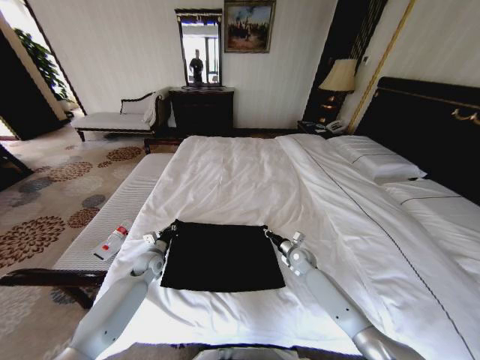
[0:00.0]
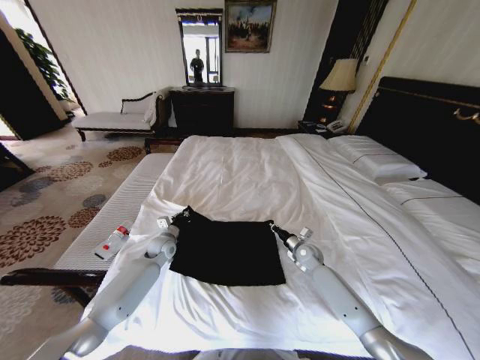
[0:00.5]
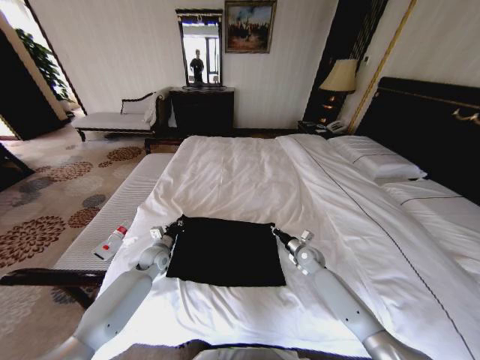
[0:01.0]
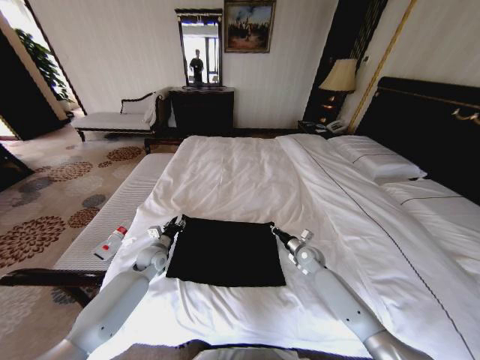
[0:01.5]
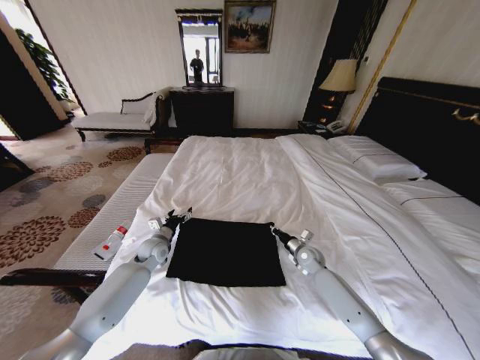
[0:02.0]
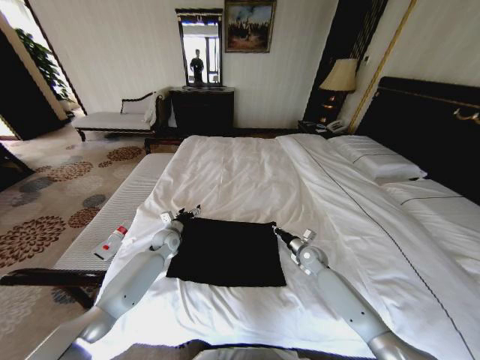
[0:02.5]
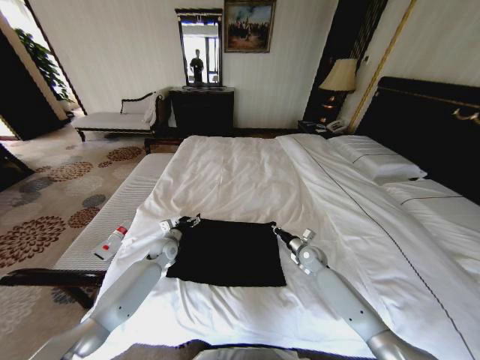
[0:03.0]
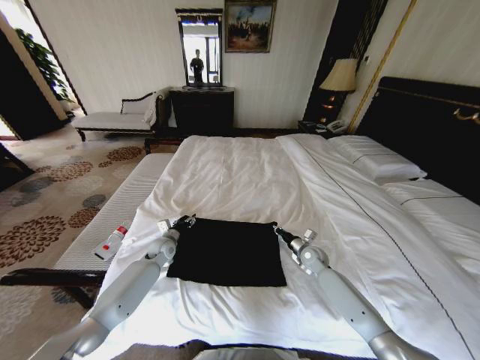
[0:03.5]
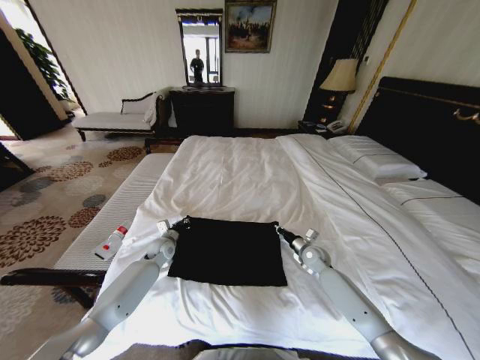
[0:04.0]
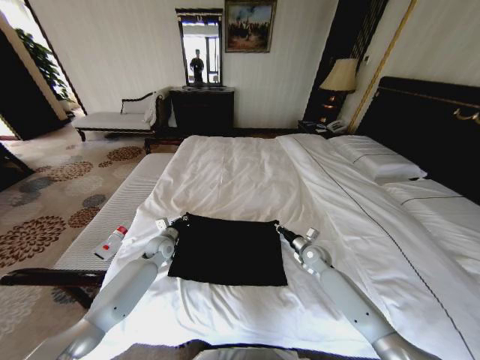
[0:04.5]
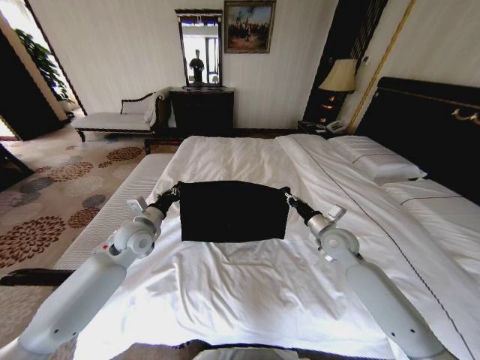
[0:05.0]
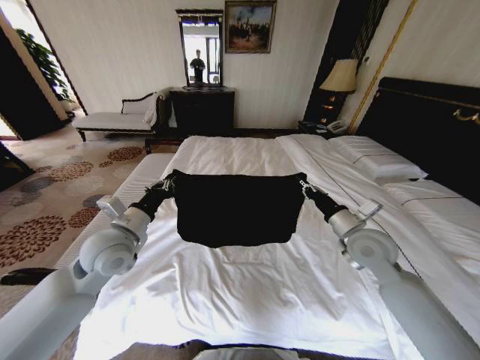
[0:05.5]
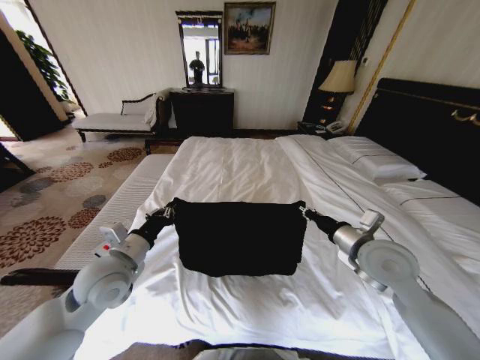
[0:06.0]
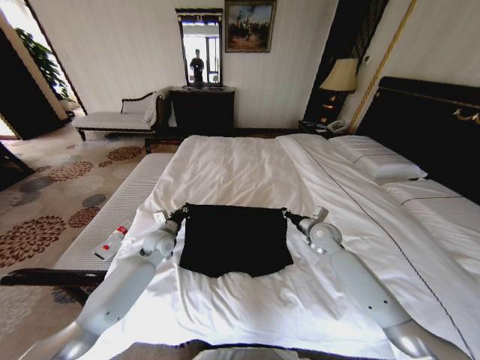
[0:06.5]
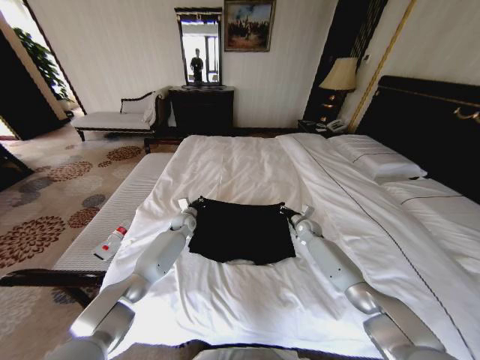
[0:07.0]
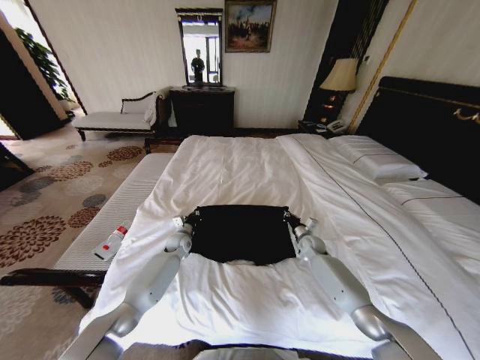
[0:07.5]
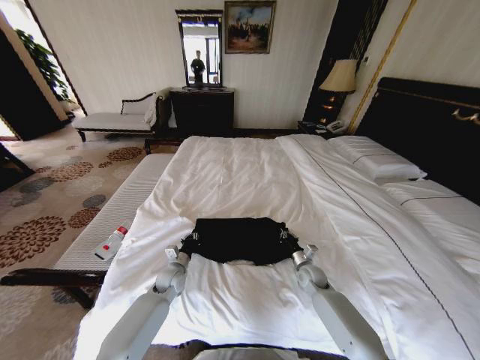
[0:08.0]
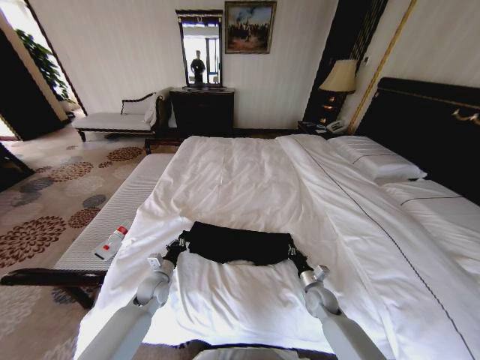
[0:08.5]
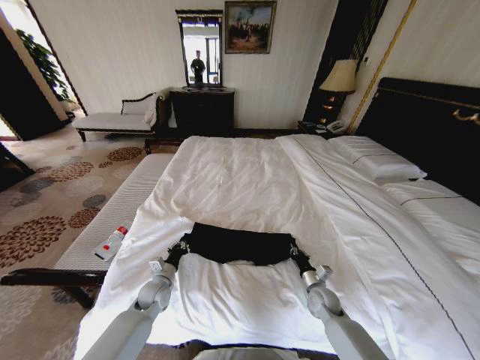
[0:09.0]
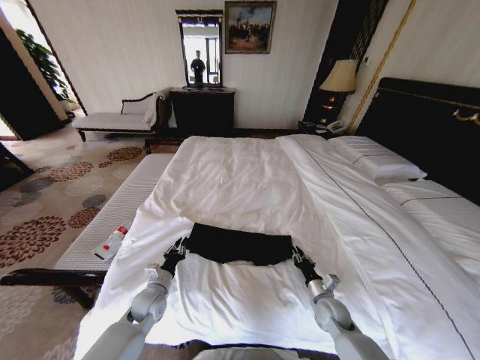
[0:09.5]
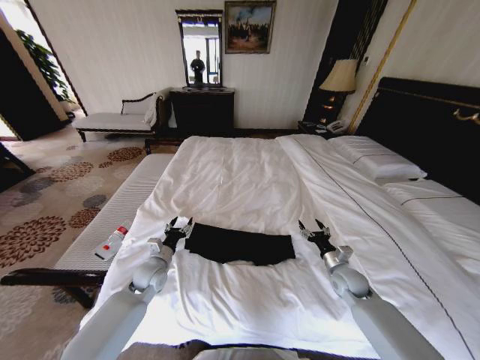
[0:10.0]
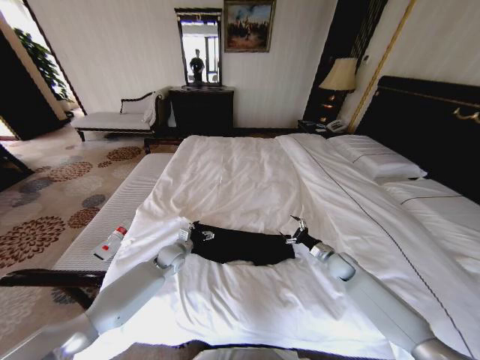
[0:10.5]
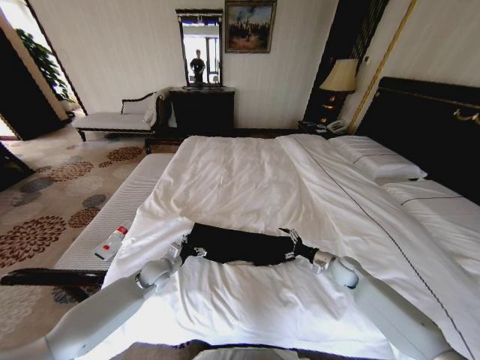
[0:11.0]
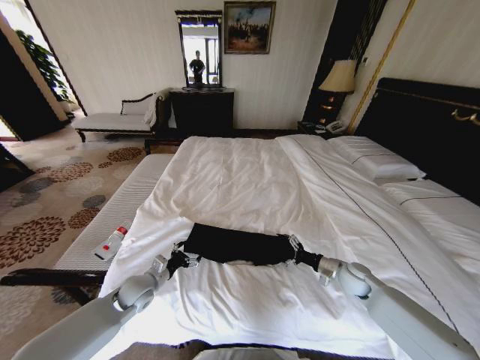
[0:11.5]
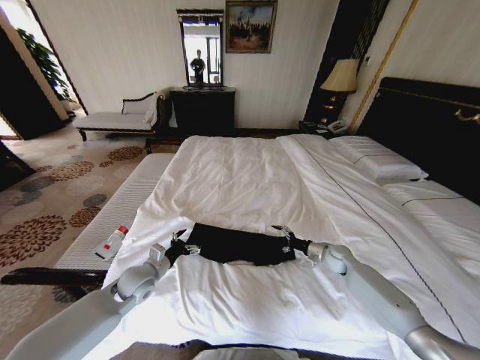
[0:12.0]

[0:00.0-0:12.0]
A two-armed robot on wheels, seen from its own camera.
Task of the whole recording: Fold the clothes on the bed.
0:00.0 to 0:02.0: The left gripper shifts about 5 cm upward, and opens its fingers.
0:02.0 to 0:04.0: The left gripper closes up.
0:04.0 to 0:06.0: Both grippers move upward and backward, about 30 cm.
0:06.0 to 0:08.0: The two grippers go roughly 30 cm downward. The left gripper goes forward and returns, about 30 cm each way.
0:08.0 to 0:10.0: The left gripper shifts roughly 5 cm upward, and opens; the right gripper heads to the right and upward, covering some 10 cm, and opens.
0:10.0 to 0:12.0: The left gripper moves about 10 cm forward and comes back. The right gripper swings forward and backward, approximately 10 cm each way, with 2 reversals.

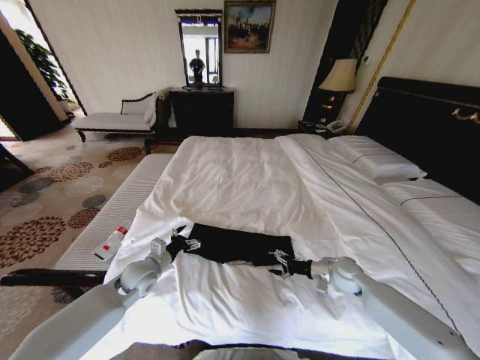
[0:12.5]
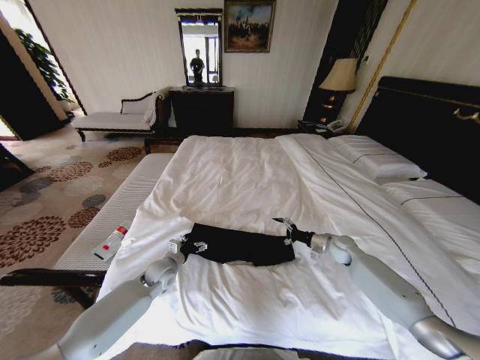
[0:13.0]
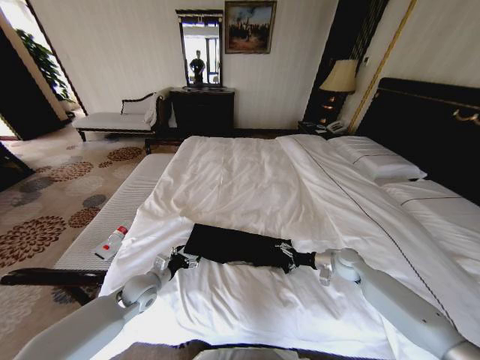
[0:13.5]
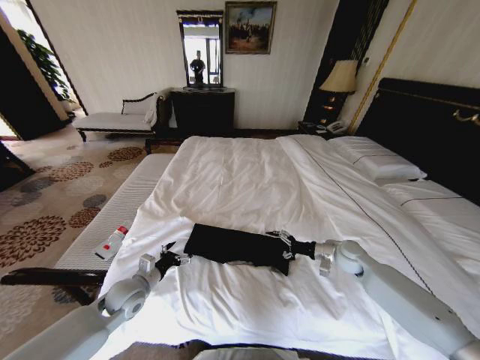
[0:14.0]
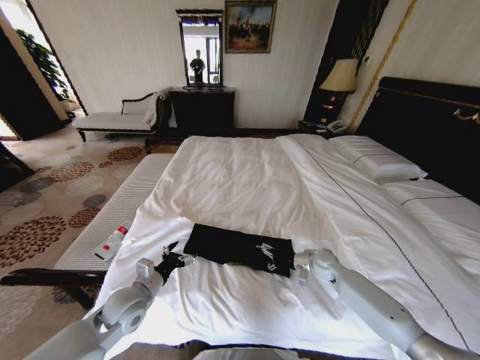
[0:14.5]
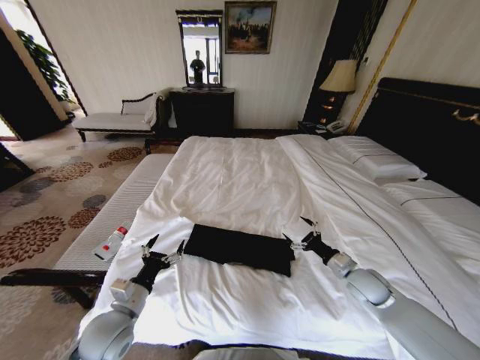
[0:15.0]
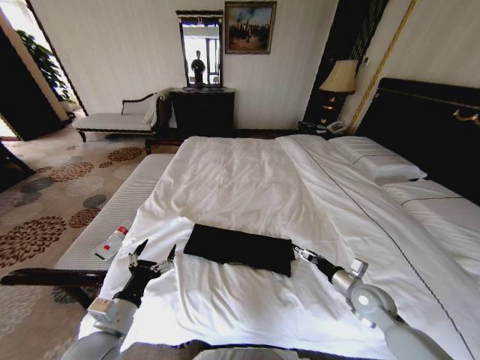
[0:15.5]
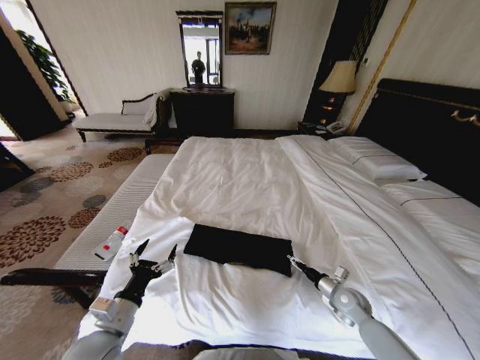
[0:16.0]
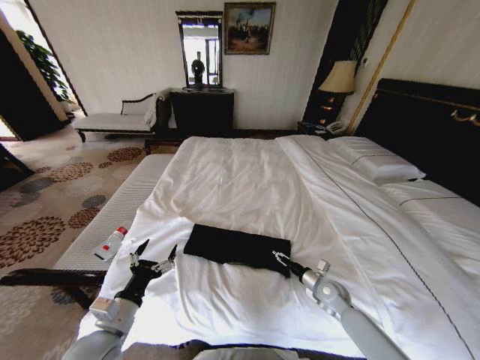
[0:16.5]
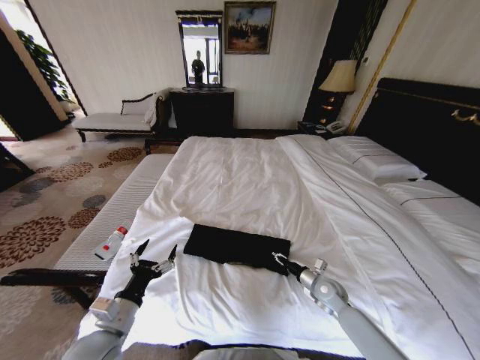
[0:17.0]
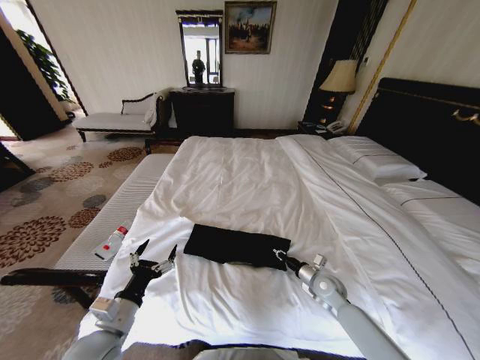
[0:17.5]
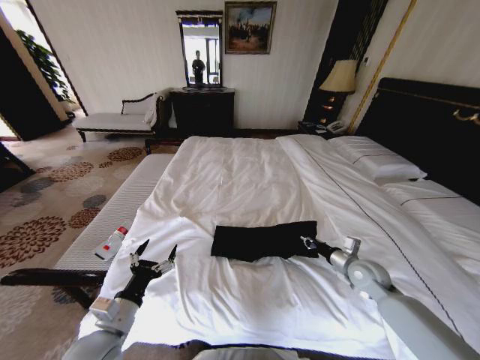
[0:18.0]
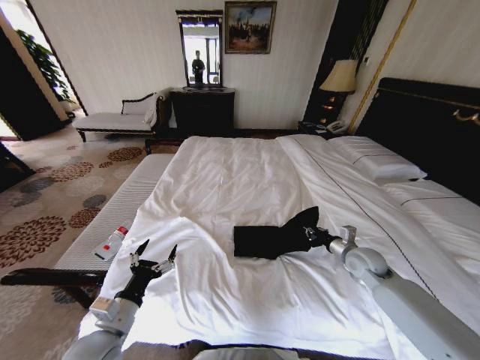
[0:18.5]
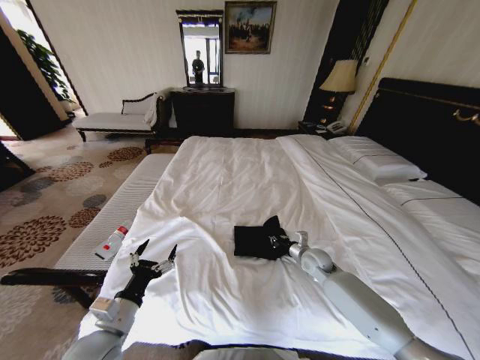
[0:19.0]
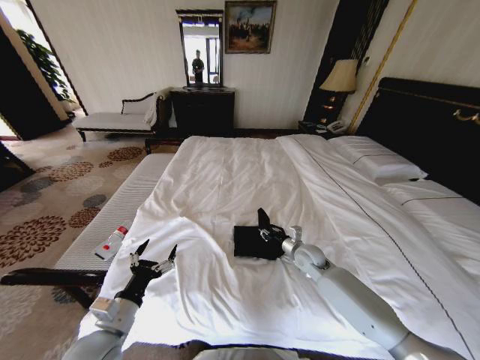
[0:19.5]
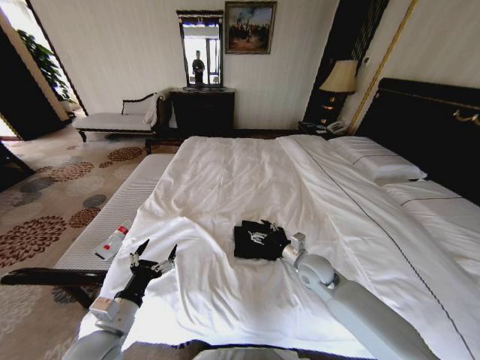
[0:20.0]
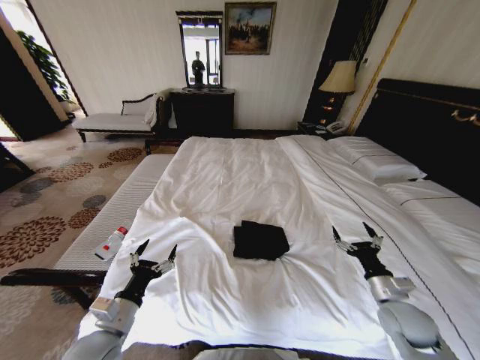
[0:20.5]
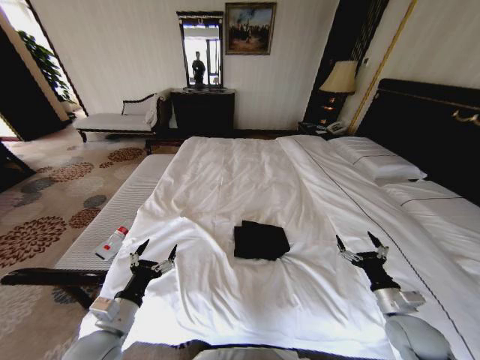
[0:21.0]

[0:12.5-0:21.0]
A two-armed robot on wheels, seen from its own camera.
Task of the whole recording: Fold the clothes on the bed.
0:12.5 to 0:14.5: The left gripper goes approximately 10 cm backward.
0:14.5 to 0:16.5: The two grippers go some 10 cm backward.
0:16.5 to 0:19.0: The right gripper travels forward and upward by roughly 10 cm, and closes up.
0:19.0 to 0:21.0: The right gripper goes roughly 25 cm backward and to the right, and opens up.
